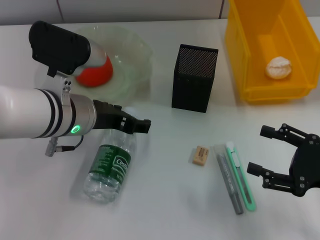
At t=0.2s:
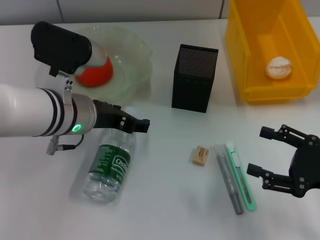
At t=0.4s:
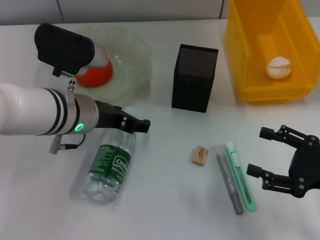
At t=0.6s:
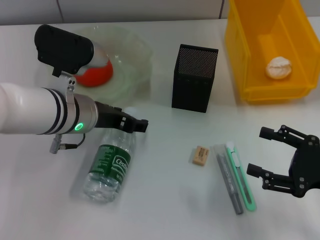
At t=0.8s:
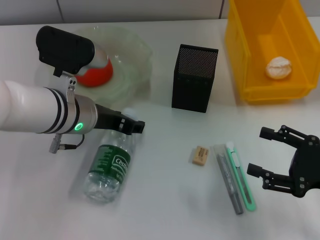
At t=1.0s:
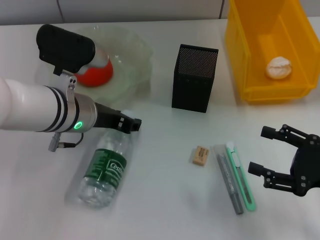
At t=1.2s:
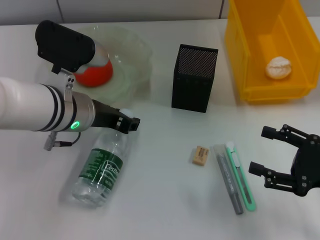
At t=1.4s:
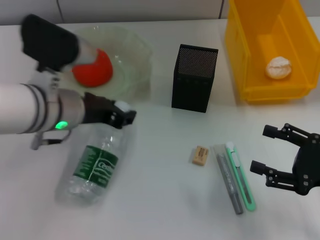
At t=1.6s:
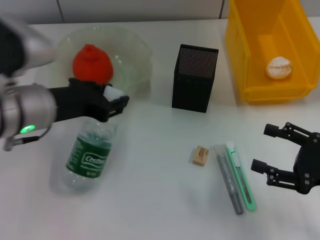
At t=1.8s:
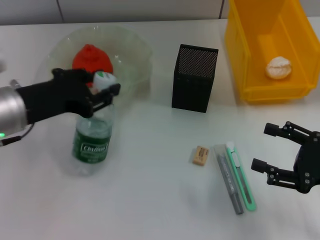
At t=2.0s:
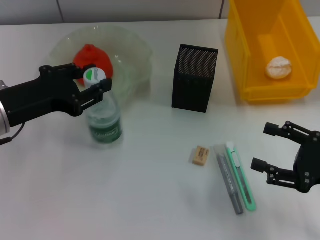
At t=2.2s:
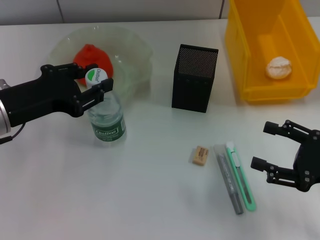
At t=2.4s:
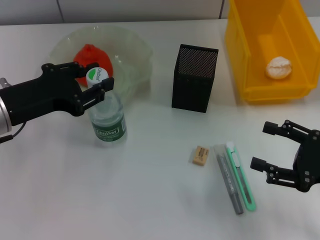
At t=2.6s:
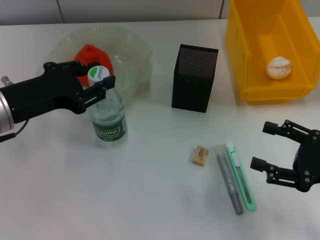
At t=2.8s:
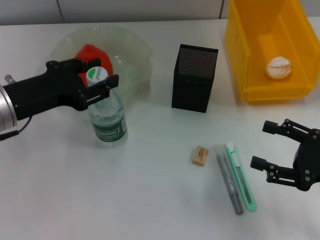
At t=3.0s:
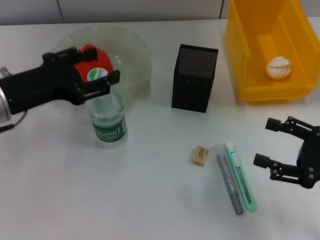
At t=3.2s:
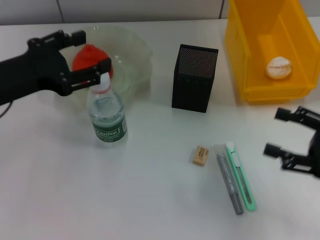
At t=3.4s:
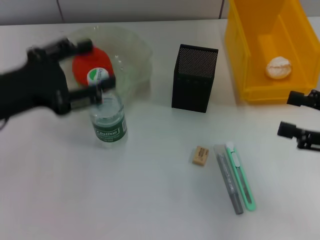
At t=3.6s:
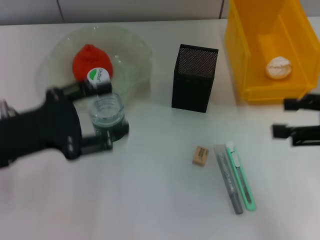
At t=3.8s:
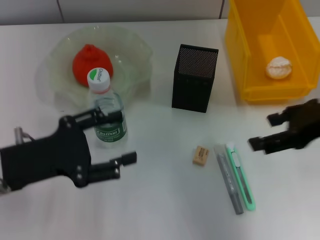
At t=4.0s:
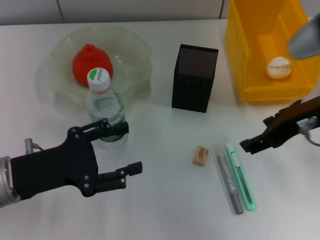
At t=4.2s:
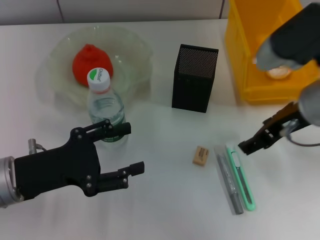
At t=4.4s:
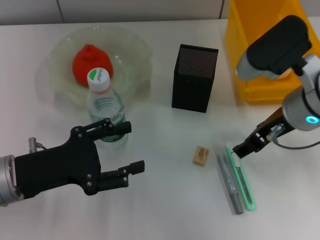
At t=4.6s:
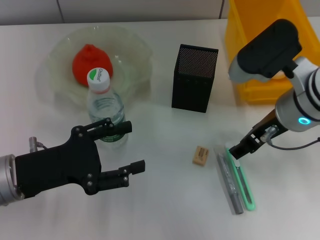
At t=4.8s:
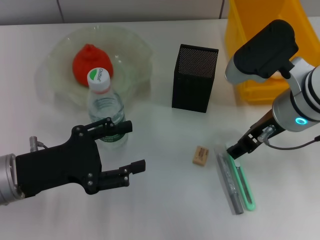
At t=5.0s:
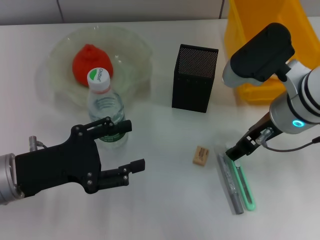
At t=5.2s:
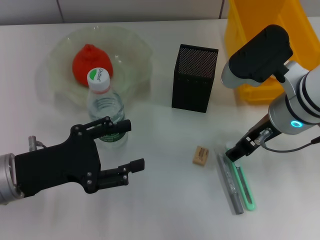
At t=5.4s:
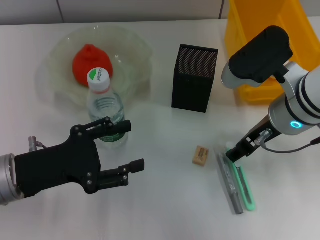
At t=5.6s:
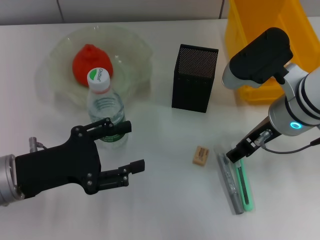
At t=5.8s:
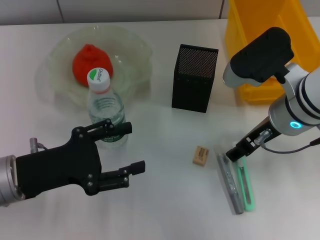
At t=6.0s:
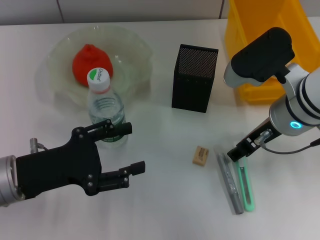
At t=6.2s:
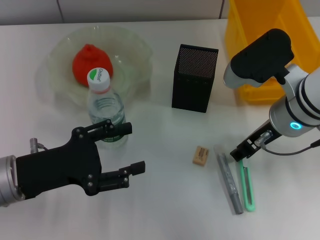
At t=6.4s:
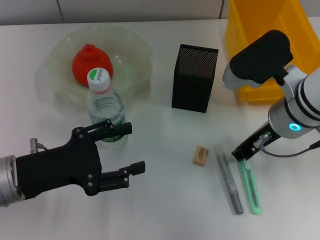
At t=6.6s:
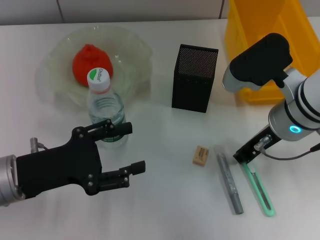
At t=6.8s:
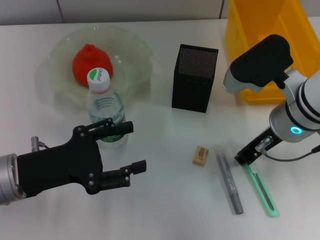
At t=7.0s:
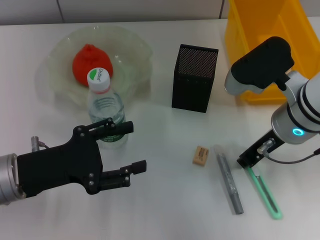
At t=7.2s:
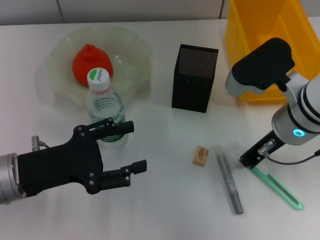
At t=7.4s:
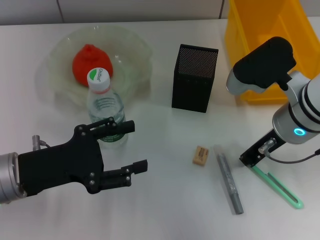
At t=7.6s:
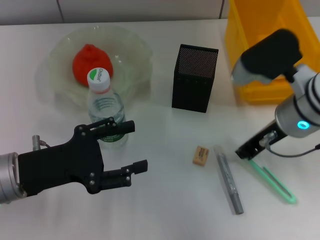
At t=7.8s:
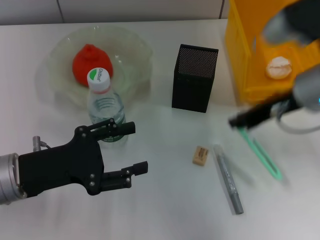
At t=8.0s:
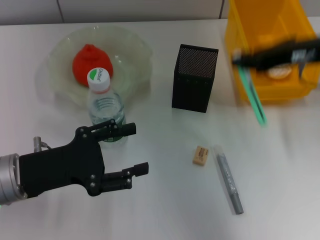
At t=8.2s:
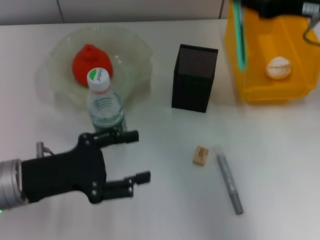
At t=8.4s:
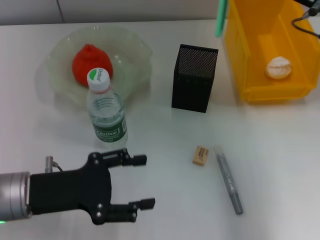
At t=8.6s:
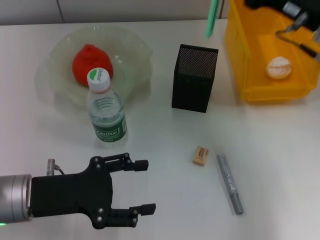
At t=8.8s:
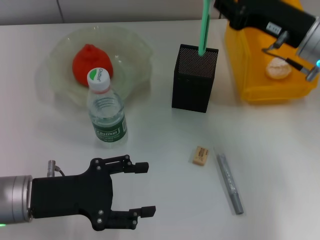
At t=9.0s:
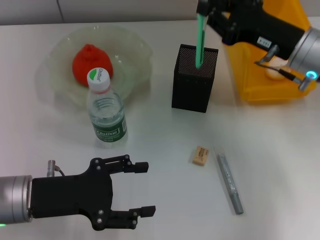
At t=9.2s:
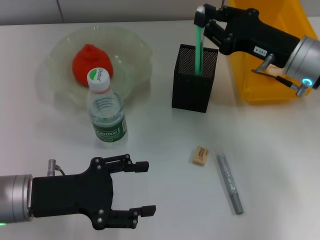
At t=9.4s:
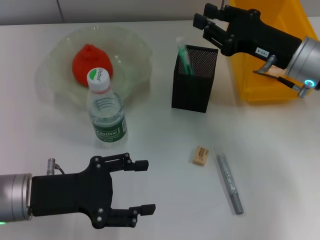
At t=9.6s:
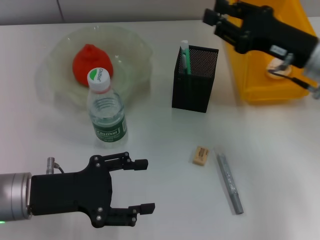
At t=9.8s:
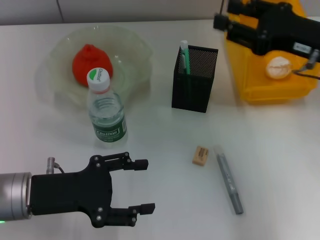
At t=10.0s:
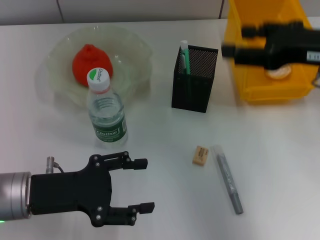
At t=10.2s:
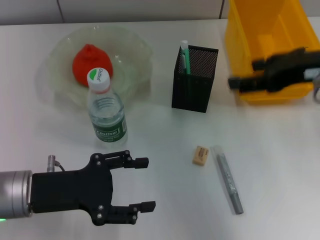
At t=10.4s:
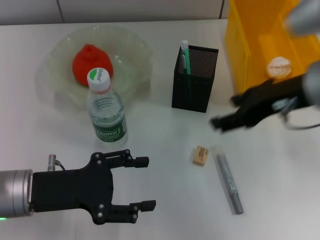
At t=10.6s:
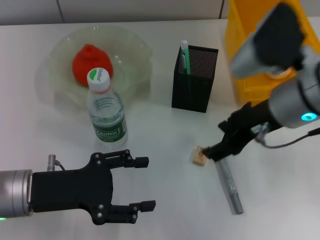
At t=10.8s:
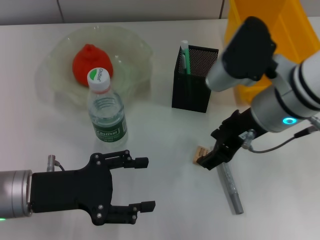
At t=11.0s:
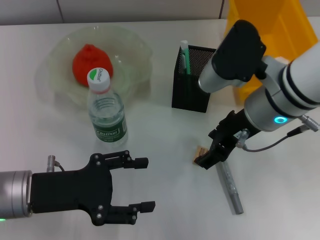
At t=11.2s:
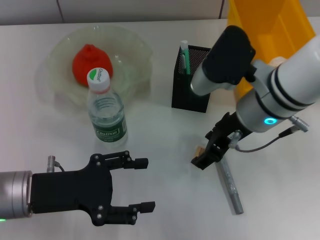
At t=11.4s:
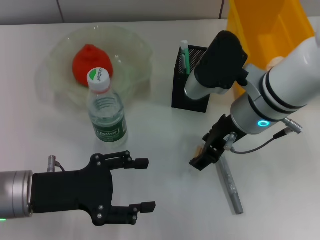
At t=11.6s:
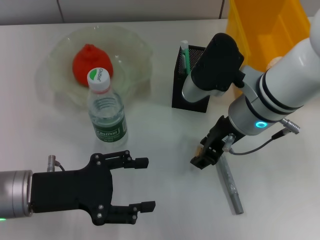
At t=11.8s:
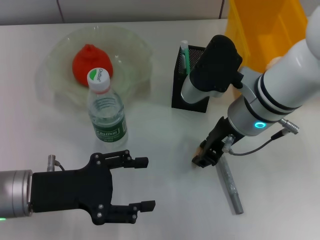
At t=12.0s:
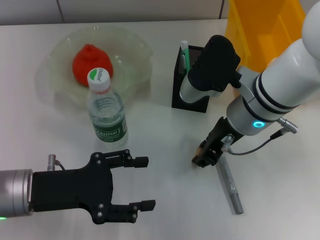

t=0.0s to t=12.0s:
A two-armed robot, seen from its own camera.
Step, t=1.2s to t=3.0s: Place the water bottle on the table with the left hand.
Step, t=3.2s to t=7.2s: Grab the blue utility knife with the right hand.
Step, t=7.4s to t=9.6s: Place the blue utility knife into the pen holder with the right hand.
Step, t=9.8s to t=11.8s: Grab the eraser with the right hand.
t=0.0s to t=1.6s: The left gripper travels to the left by roughly 5 cm, and closes its fingers.
t=3.0s to t=4.4s: The left gripper moves downward and backward, some 10 cm. The right gripper heads to the left, forward and upward, covering roughly 20 cm.
t=4.4s to t=6.0s: There are only small adjustments of the grippers.
t=6.0s to t=7.6s: The right gripper closes.
t=7.6s to t=9.0s: The right gripper travels upward and back again, roughly 10 cm each way.
t=9.0s to t=10.4s: The right gripper goes roughly 10 cm upward and backward, and opens up.
t=10.4s to t=12.0s: The right gripper goes approximately 10 cm to the left and downward, and closes its fingers.

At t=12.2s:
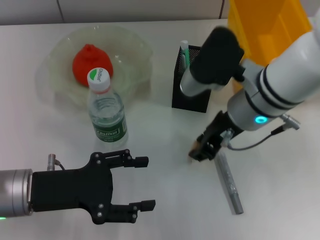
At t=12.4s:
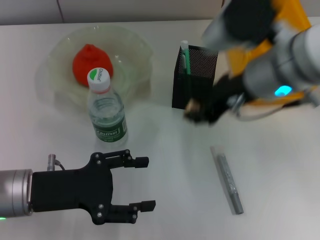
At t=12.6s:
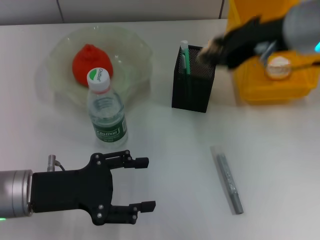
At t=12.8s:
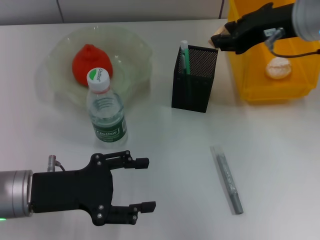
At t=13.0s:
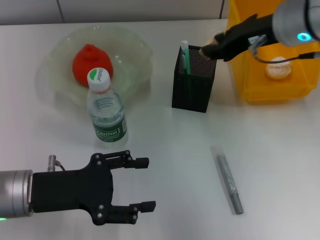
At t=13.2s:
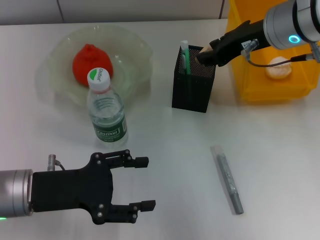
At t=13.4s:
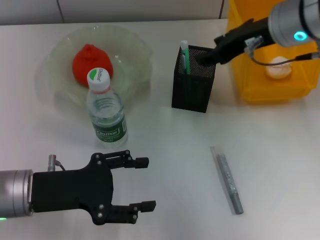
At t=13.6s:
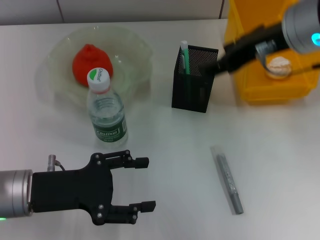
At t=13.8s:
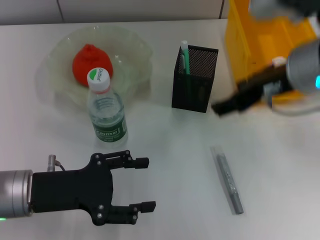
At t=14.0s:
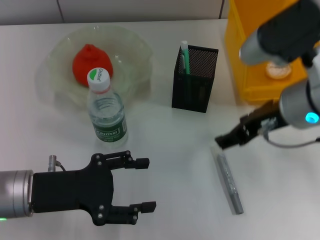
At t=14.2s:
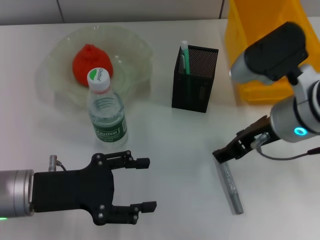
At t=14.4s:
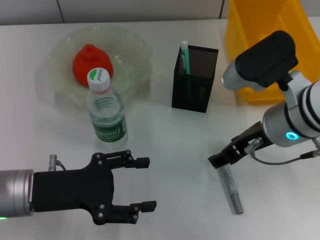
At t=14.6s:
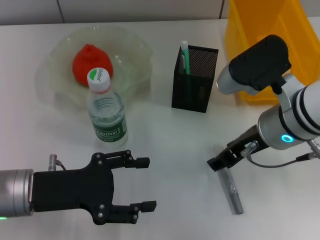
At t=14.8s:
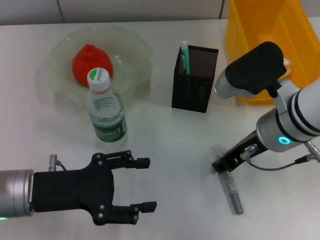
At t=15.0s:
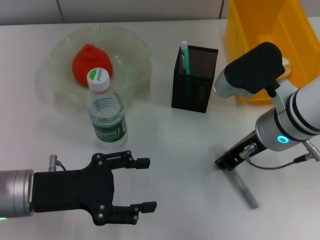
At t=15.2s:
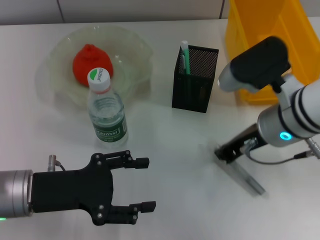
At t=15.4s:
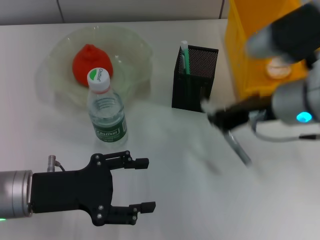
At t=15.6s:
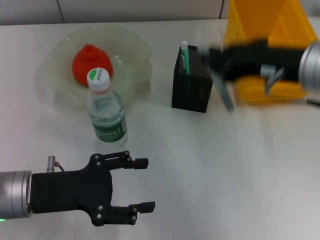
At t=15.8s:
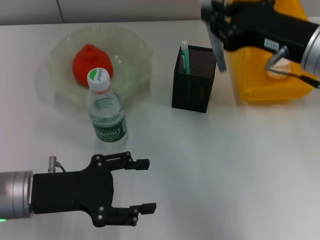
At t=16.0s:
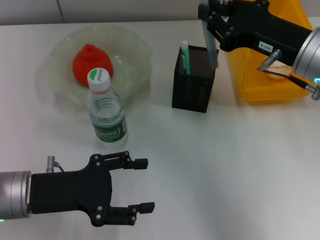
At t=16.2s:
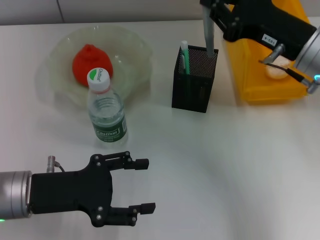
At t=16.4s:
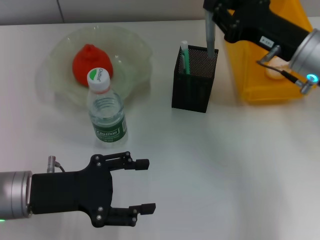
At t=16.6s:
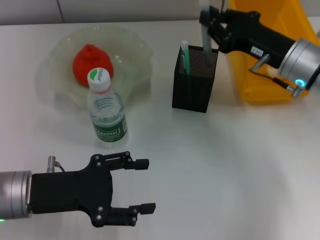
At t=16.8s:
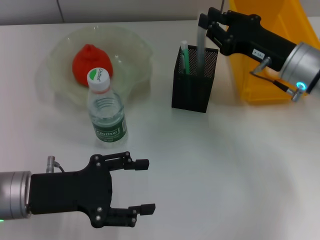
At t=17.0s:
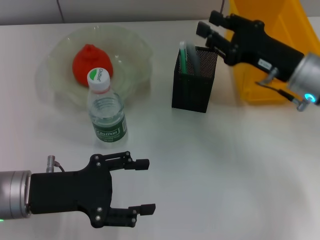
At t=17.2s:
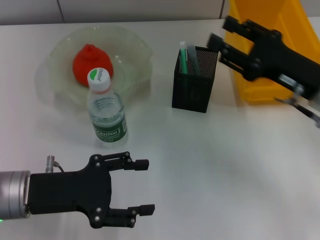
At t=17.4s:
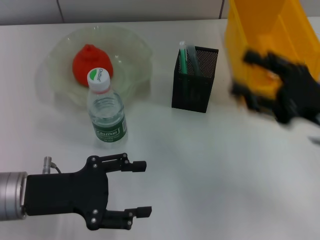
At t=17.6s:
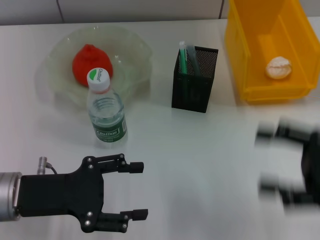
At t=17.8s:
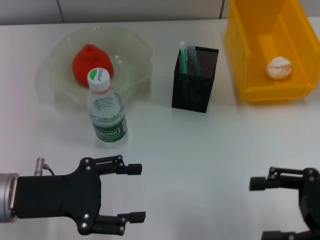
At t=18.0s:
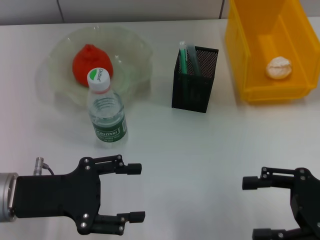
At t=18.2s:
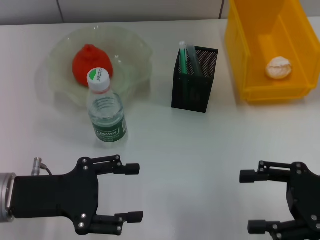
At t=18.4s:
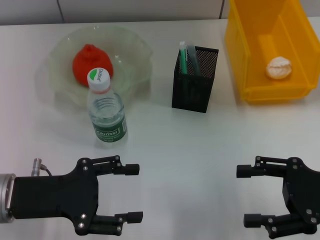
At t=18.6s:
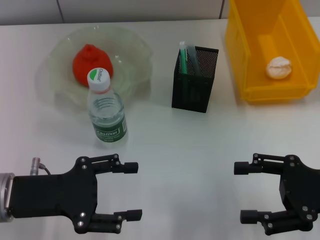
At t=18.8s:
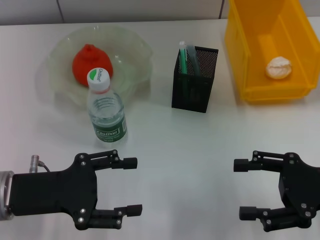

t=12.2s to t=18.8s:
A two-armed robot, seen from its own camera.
Step, t=12.2s to t=13.6s: Put the eraser into the pen holder with the right hand.
Step, t=13.8s to t=15.0s: Grab the gray glue with the right hand.
Step, t=15.2s to t=17.0s: Place the gray glue into the pen holder with the right hand.
t=12.2s to t=13.8s: The right gripper heads upward, covering about 5 cm, and opens up.
t=13.8s to t=15.4s: The right gripper heads downward, covering approximately 5 cm, and closes.
t=15.4s to t=17.2s: The right gripper moves to the right and downward, approximately 10 cm, and opens its fingers.
t=17.2s to t=18.8s: The right gripper goes about 10 cm backward, and opens its fingers.
